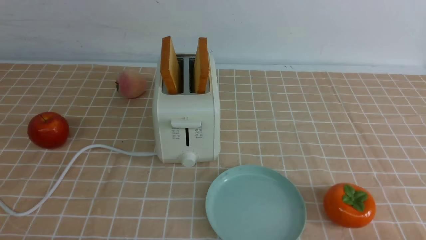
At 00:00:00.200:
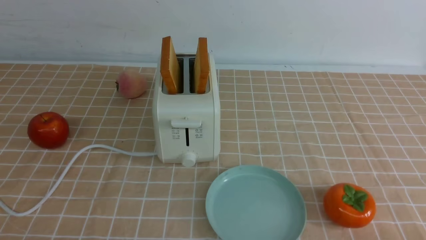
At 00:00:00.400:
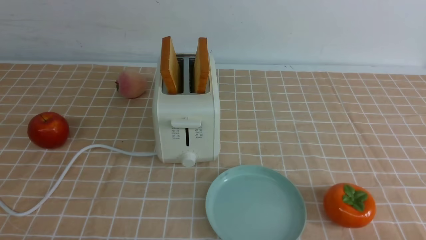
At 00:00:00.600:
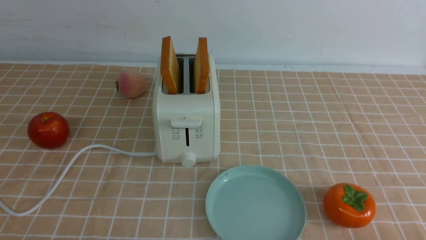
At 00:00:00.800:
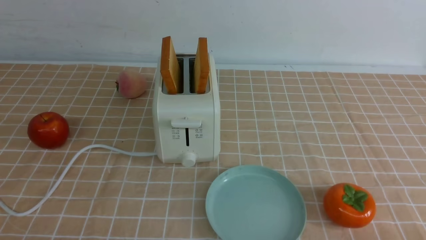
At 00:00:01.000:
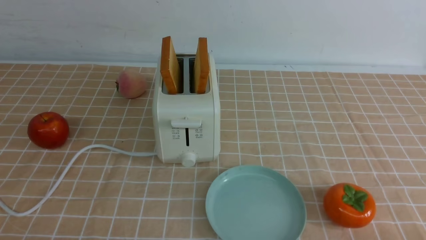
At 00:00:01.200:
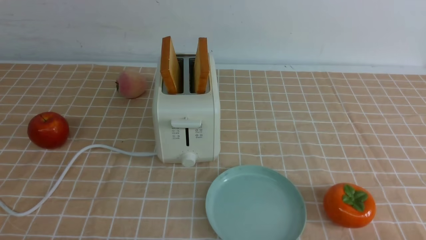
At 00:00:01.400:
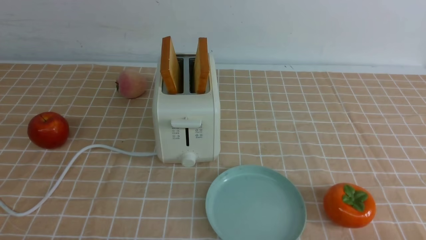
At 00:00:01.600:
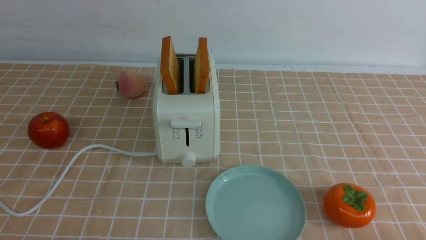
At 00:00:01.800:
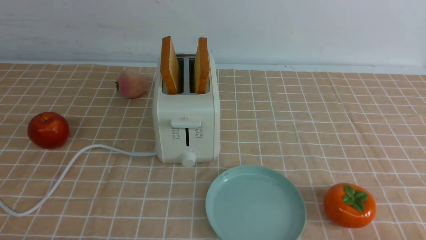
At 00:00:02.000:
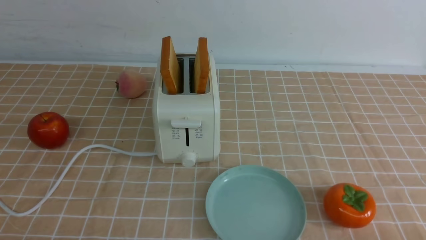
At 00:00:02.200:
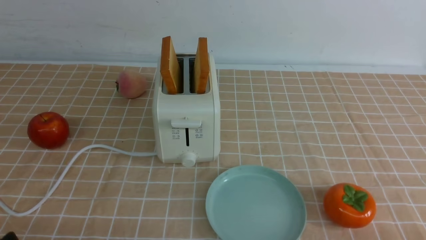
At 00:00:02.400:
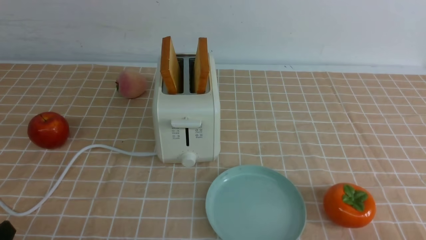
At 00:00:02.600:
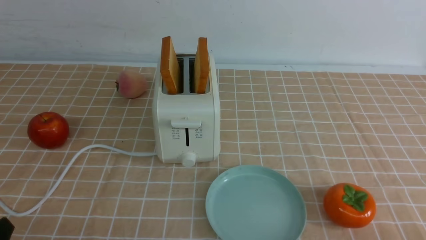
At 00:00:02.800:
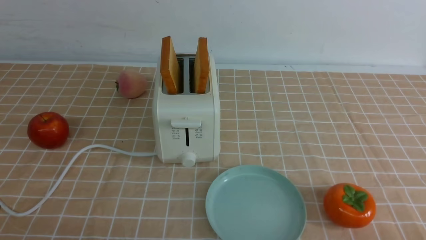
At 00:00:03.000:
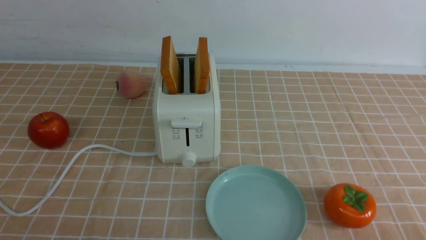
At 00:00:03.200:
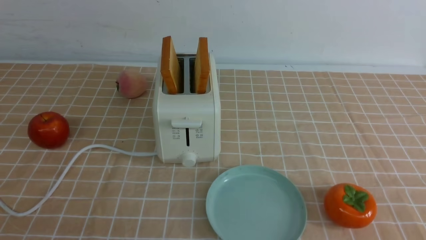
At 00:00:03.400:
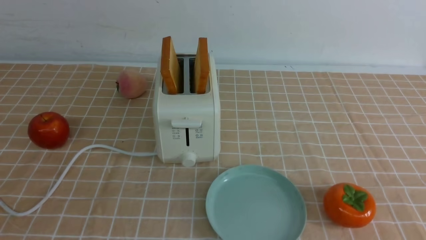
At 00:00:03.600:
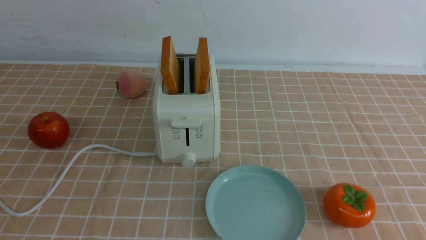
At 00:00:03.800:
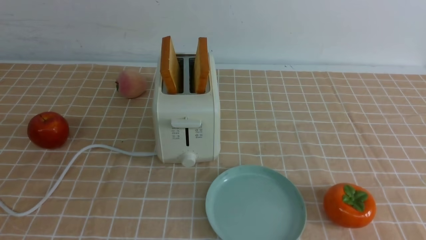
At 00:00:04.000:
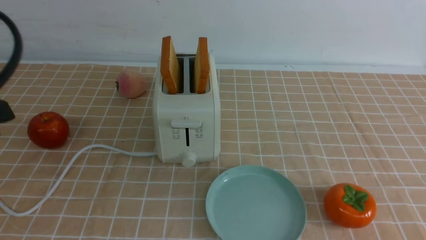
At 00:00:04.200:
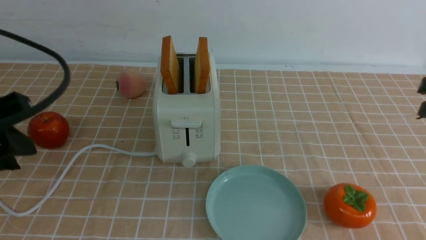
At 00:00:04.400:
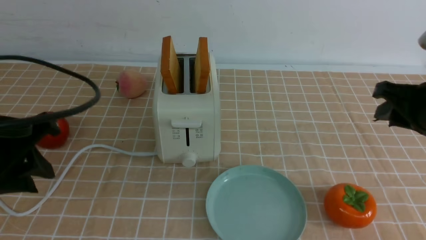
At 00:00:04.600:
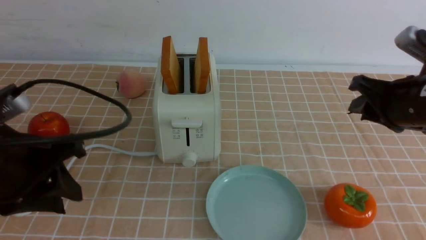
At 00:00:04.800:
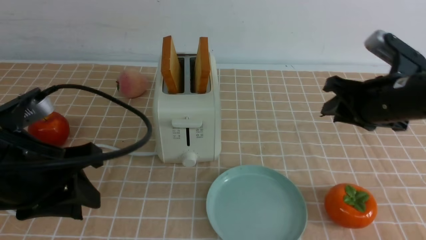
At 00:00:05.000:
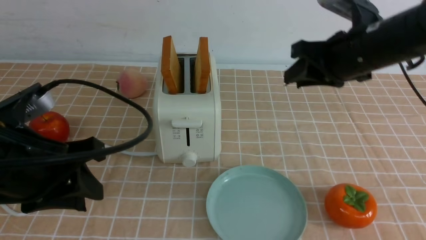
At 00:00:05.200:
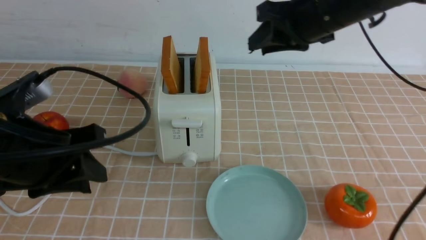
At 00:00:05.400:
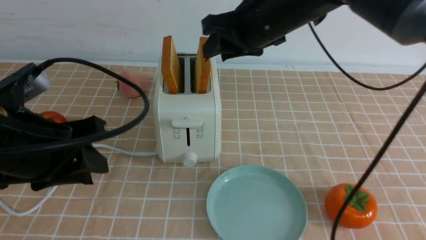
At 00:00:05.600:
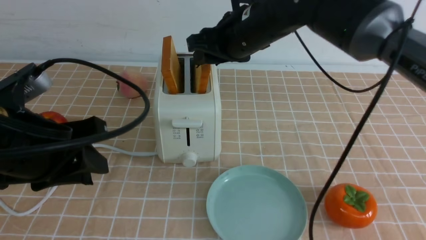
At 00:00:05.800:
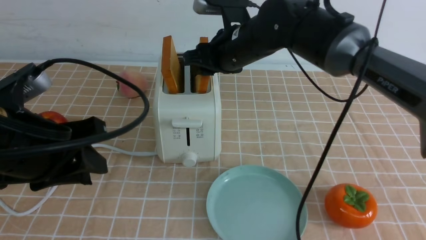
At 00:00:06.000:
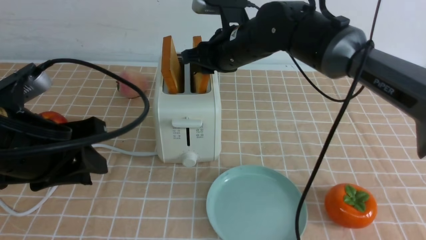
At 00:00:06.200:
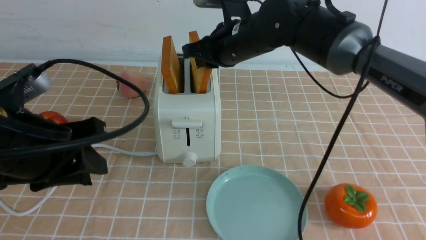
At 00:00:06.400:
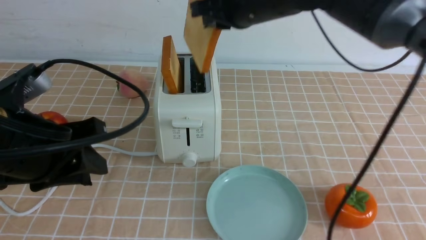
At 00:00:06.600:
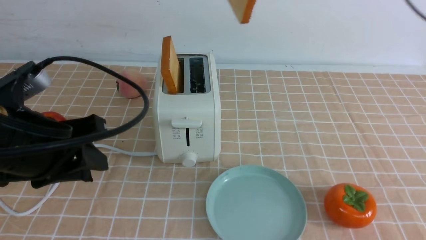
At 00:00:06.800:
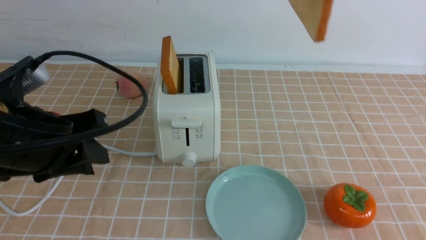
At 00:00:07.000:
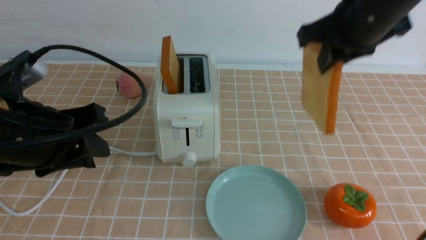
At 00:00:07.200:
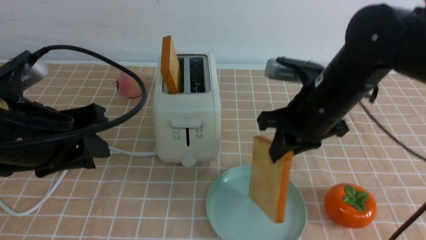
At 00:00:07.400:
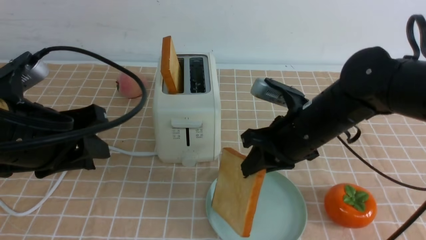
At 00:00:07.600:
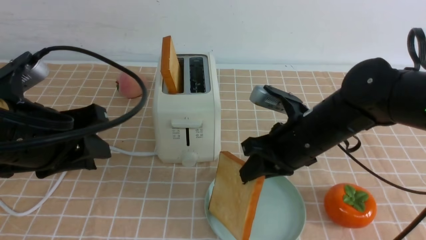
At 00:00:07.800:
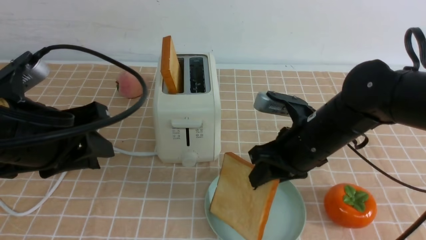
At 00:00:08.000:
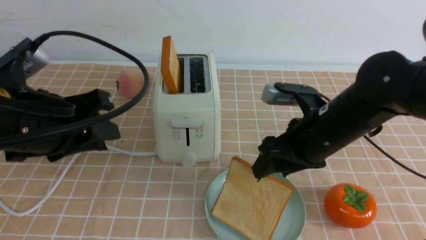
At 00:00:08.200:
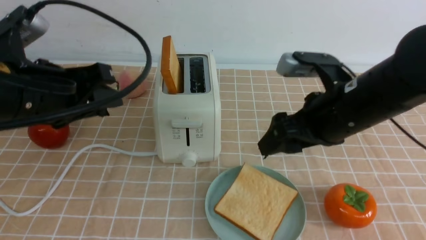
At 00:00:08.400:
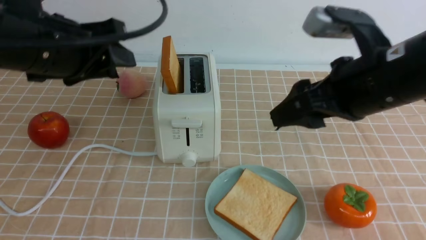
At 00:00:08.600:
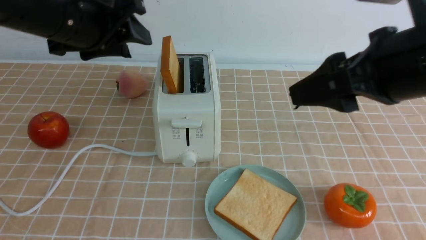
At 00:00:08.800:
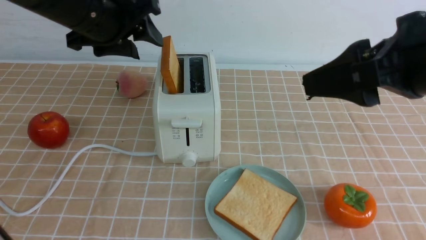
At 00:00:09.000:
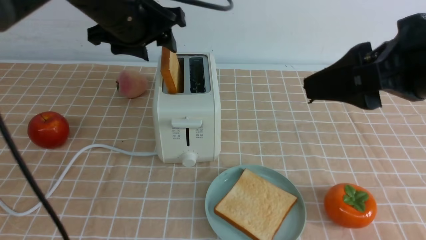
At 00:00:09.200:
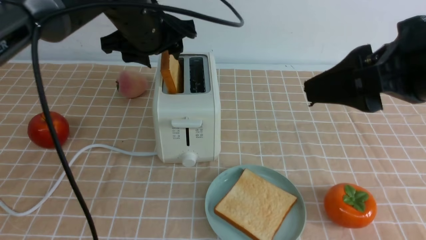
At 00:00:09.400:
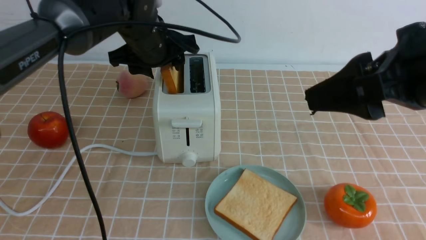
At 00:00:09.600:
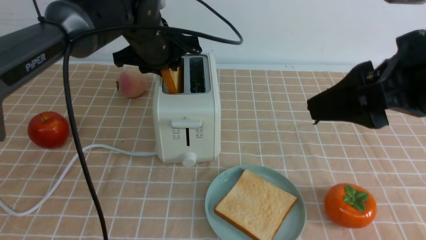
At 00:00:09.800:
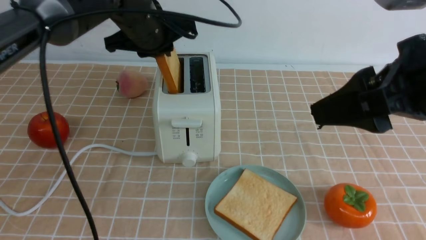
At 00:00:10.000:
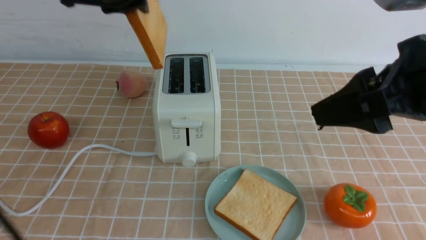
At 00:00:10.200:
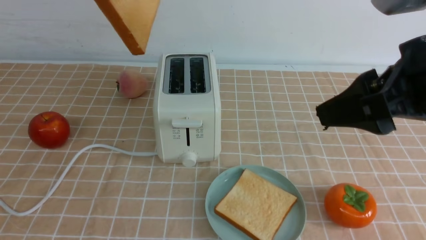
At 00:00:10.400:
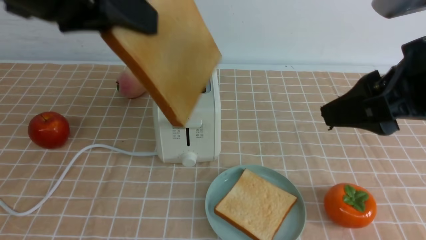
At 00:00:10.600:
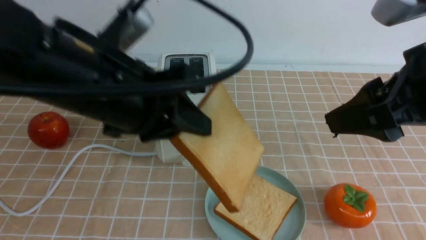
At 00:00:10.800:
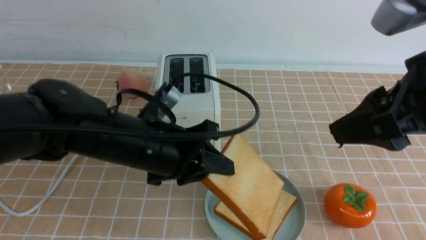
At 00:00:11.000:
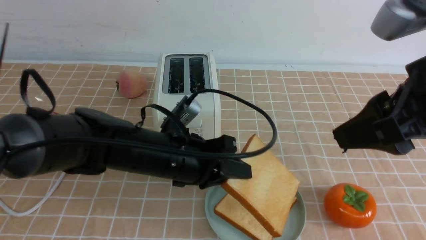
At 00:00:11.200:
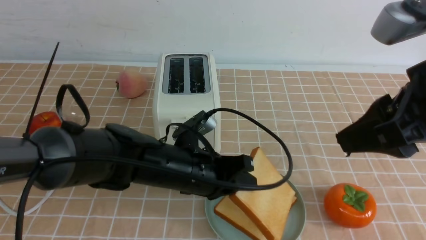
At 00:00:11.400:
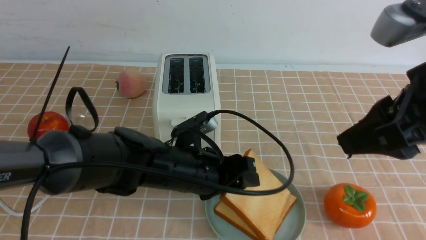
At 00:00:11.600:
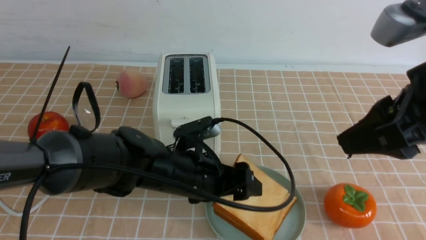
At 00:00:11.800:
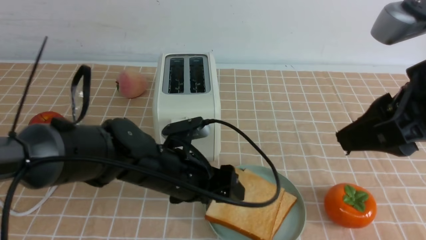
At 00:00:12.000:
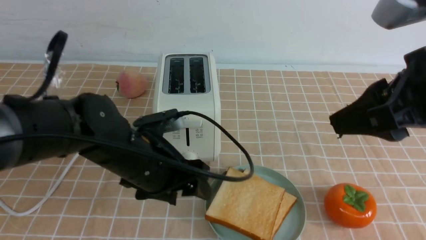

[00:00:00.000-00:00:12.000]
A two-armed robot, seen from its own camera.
Task of the whole recording: take toasted bread from bread machine on light coffee tablecloth place on plate.
Step, 00:00:00.000 to 00:00:06.200: use the right arm to take out a slice of bread.
Step, 00:00:06.600 to 00:00:08.000: use the right arm to put a slice of bread into the plate.
Step, 00:00:08.200 to 00:00:09.800: use the left arm to take out a slice of bread.
Step, 00:00:10.000 to 00:00:12.000: use the left arm to put a slice of bread into the empty plate.
00:00:00.000 to 00:00:01.600: Both grippers stay about where they are.
00:00:03.000 to 00:00:04.400: The right gripper is displaced forward by some 20 cm. Meanwhile the left gripper is displaced forward and upward by roughly 15 cm.
00:00:04.400 to 00:00:06.000: The right gripper shifts about 30 cm to the left and forward.
00:00:06.000 to 00:00:07.600: The right gripper heads backward and to the right, covering approximately 15 cm, and travels upward and back again, some 15 cm each way.
00:00:07.600 to 00:00:09.000: The left gripper is displaced forward and to the right by about 20 cm, and opens its fingers. The right gripper travels upward and backward by some 20 cm, and opens up.
00:00:09.000 to 00:00:10.400: The left gripper shifts approximately 15 cm backward and upward, and closes.
00:00:10.400 to 00:00:12.000: The left gripper shifts roughly 20 cm downward, and opens.

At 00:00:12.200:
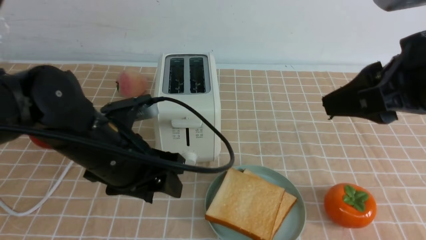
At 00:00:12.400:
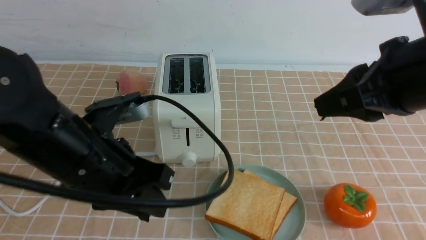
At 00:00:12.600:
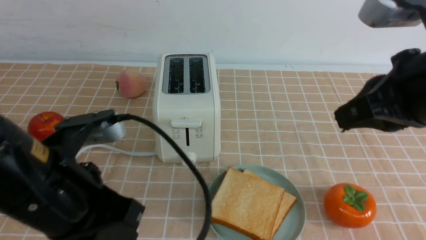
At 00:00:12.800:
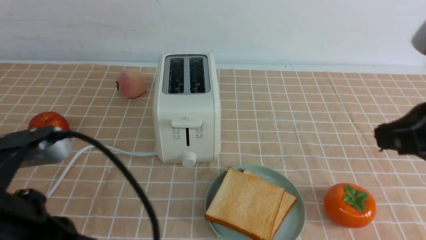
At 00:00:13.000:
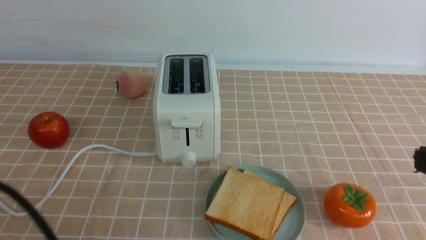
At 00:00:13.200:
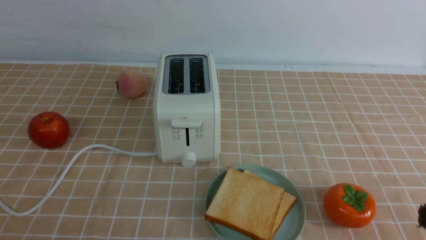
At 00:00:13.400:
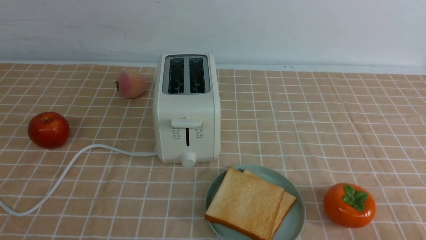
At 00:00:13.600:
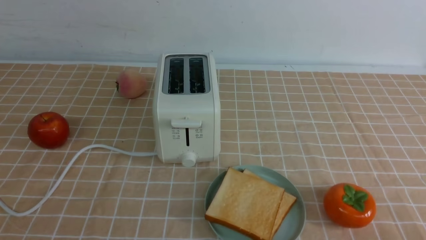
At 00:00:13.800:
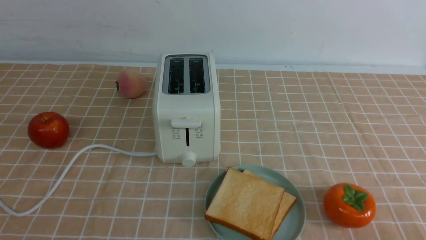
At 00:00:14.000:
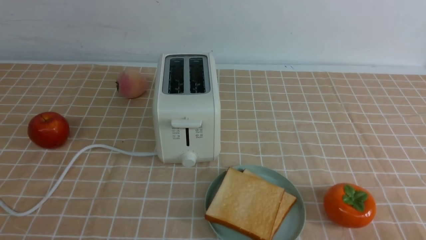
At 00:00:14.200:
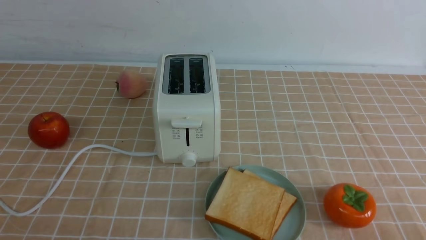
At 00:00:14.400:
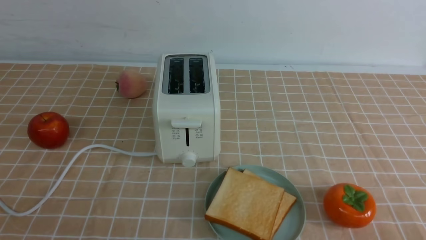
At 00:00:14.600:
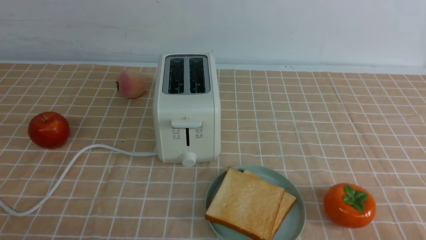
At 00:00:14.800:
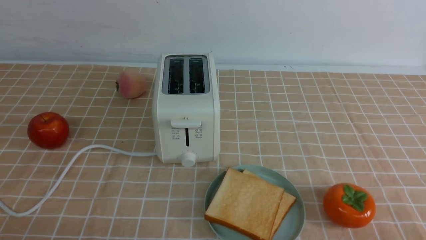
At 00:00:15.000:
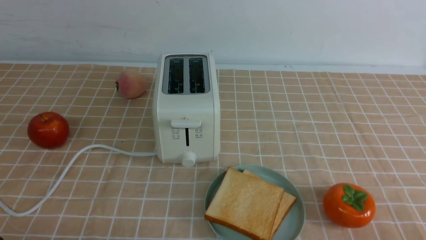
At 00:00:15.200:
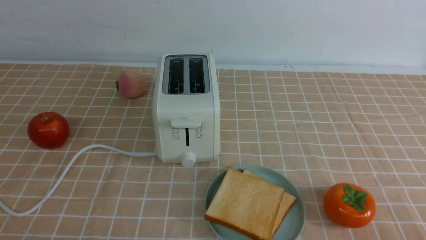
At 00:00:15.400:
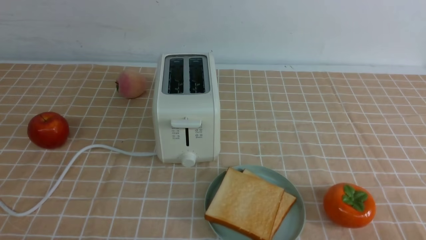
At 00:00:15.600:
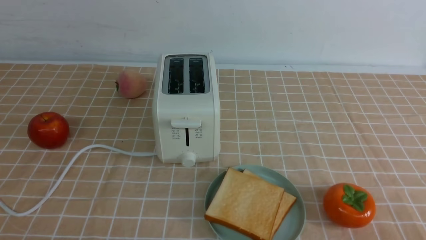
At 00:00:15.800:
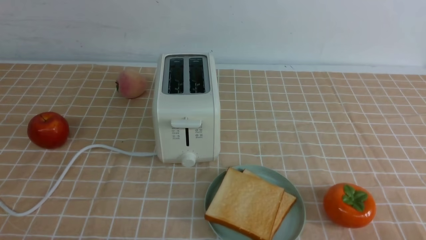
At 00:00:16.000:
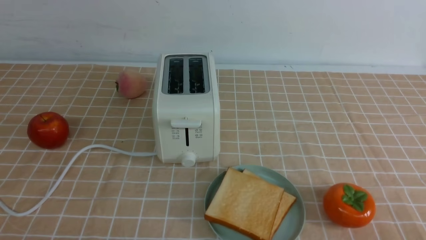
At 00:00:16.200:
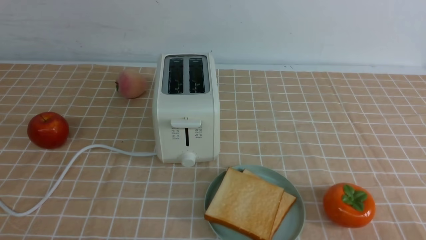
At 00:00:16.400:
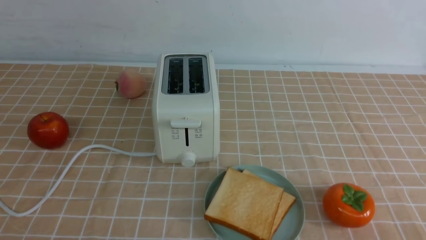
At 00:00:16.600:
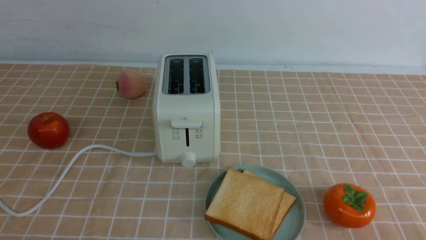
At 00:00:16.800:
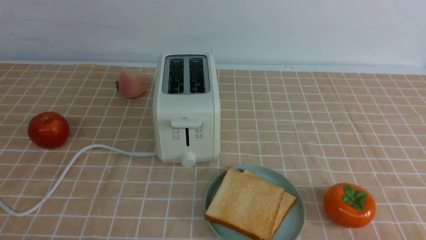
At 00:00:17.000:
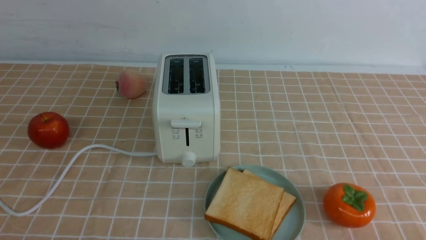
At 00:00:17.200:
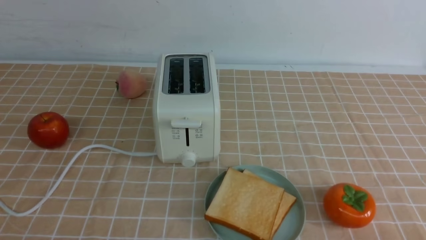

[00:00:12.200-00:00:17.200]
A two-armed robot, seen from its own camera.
Task of the whole recording: take toasted bread from bread machine on light coffee tablecloth place on plate.
00:00:12.200 to 00:00:13.800: The right gripper shifts approximately 25 cm downward, backward and to the right, and closes; the left gripper moves backward and to the left, about 25 cm, and closes up.
